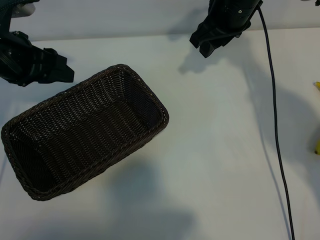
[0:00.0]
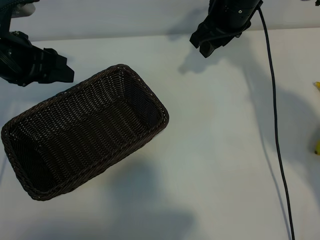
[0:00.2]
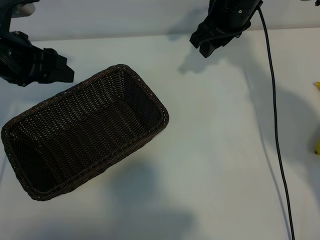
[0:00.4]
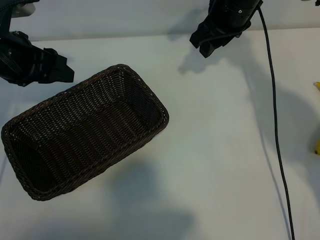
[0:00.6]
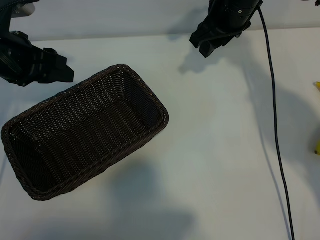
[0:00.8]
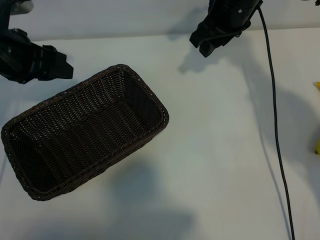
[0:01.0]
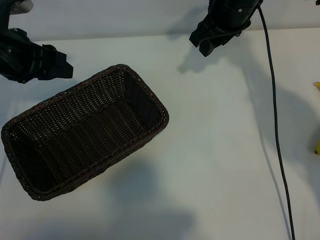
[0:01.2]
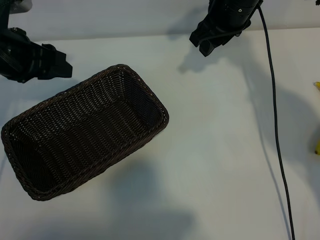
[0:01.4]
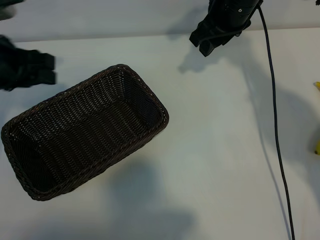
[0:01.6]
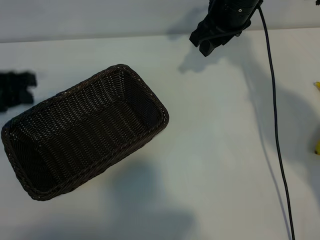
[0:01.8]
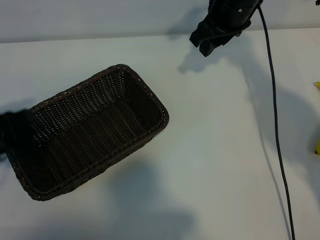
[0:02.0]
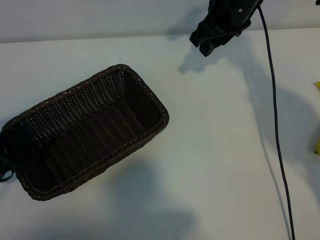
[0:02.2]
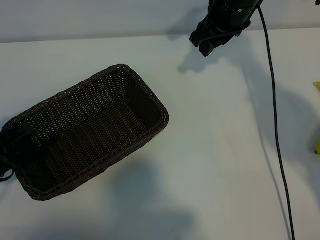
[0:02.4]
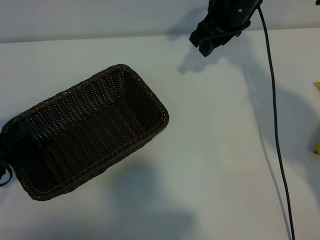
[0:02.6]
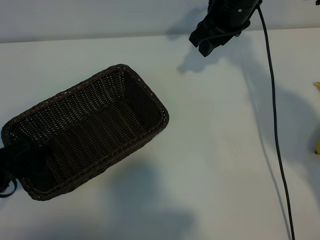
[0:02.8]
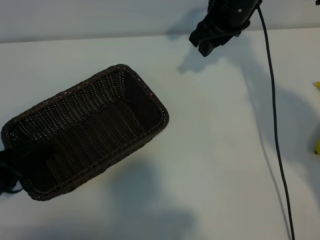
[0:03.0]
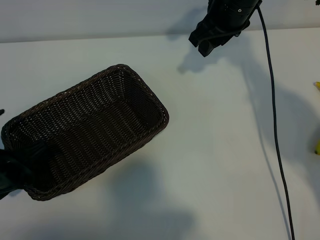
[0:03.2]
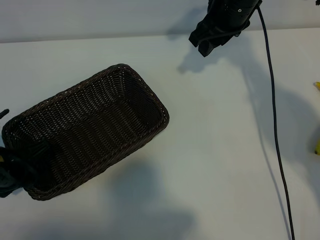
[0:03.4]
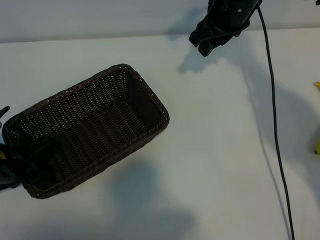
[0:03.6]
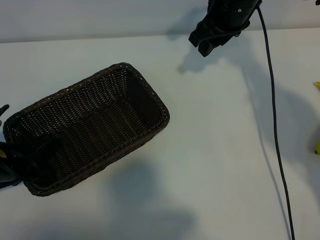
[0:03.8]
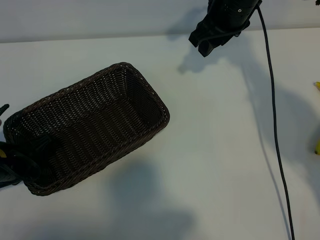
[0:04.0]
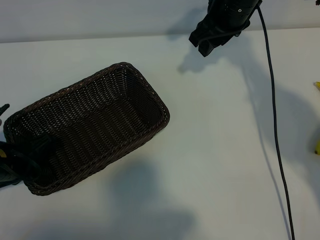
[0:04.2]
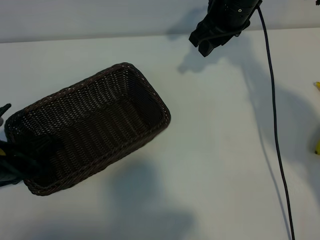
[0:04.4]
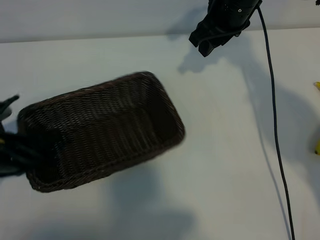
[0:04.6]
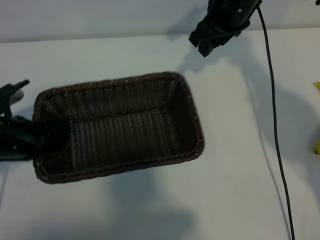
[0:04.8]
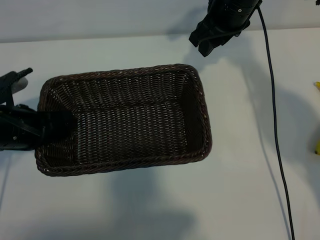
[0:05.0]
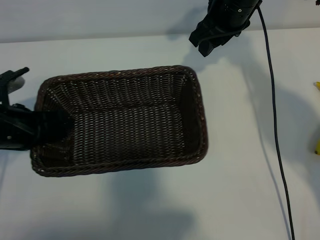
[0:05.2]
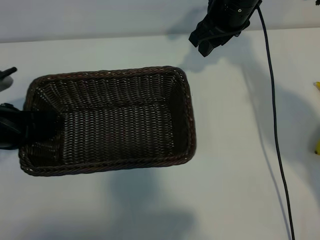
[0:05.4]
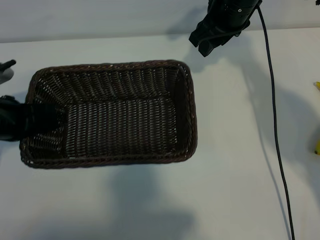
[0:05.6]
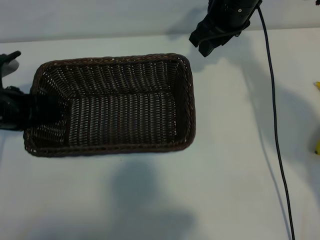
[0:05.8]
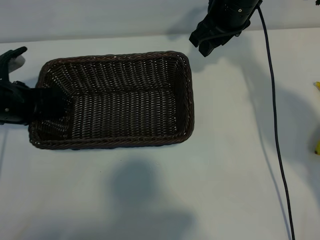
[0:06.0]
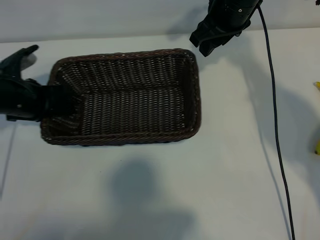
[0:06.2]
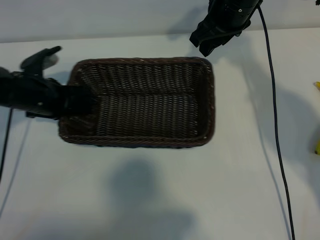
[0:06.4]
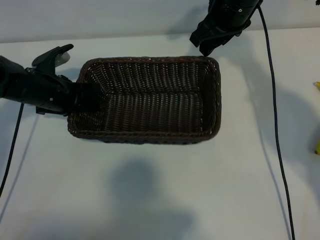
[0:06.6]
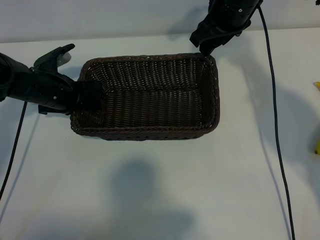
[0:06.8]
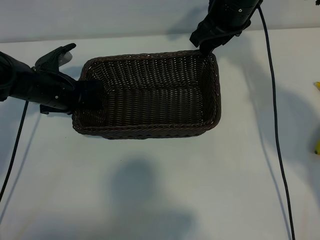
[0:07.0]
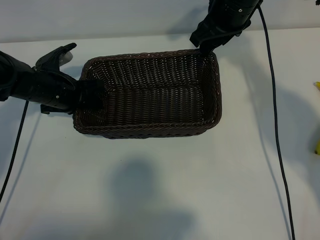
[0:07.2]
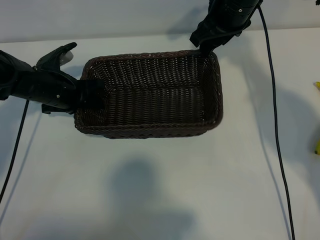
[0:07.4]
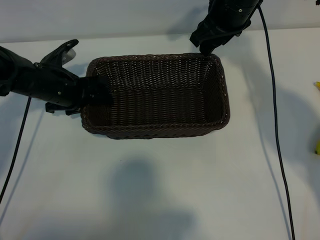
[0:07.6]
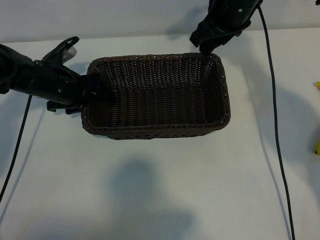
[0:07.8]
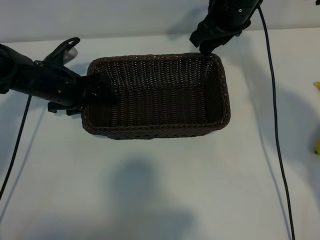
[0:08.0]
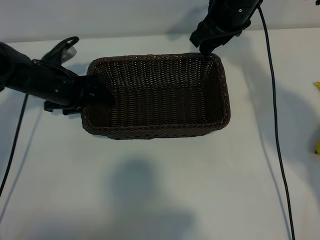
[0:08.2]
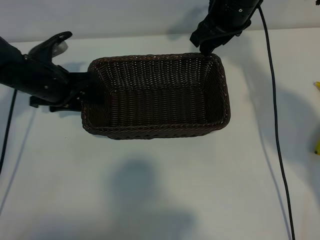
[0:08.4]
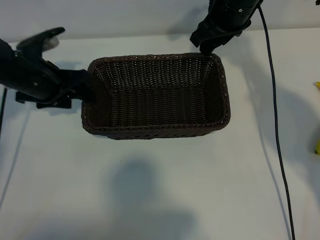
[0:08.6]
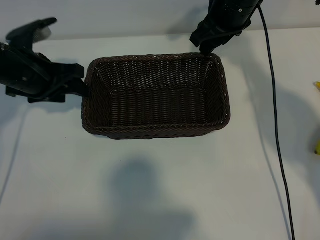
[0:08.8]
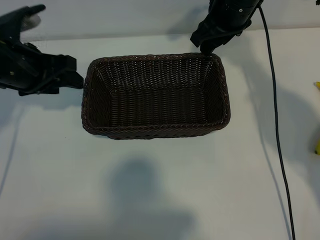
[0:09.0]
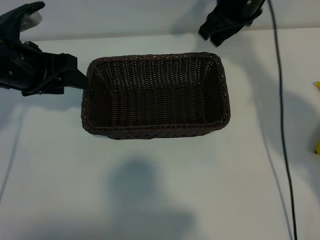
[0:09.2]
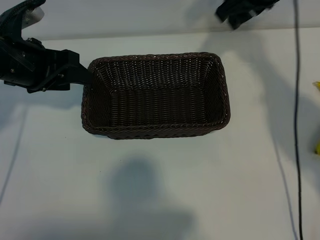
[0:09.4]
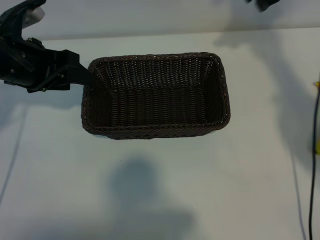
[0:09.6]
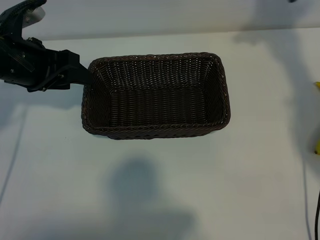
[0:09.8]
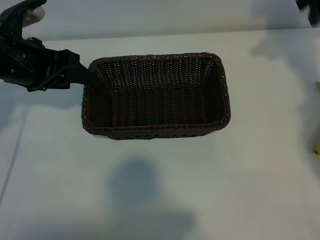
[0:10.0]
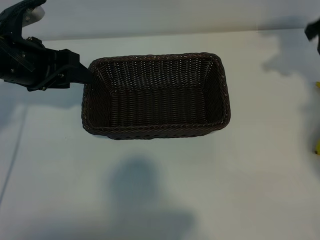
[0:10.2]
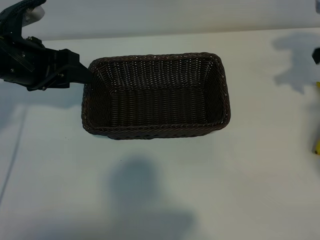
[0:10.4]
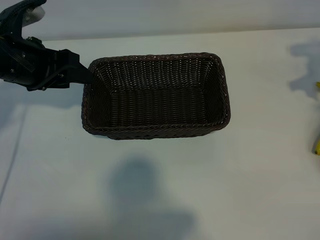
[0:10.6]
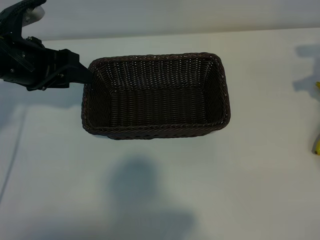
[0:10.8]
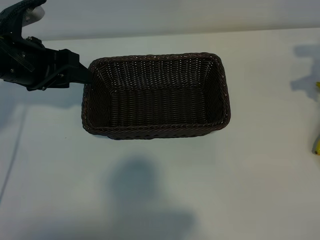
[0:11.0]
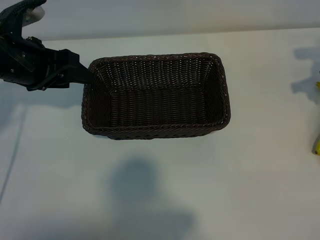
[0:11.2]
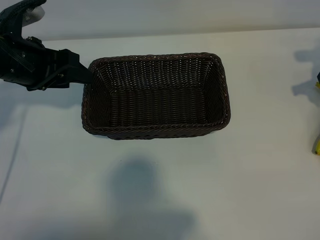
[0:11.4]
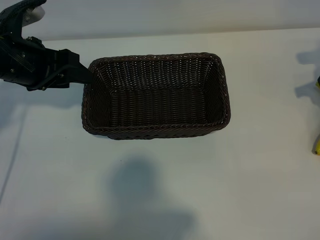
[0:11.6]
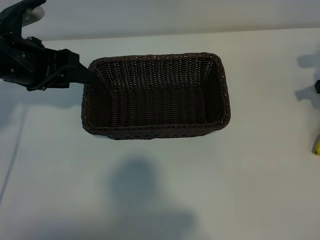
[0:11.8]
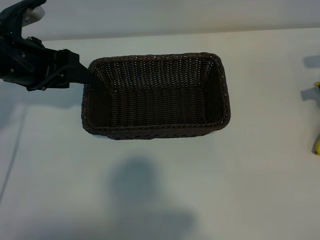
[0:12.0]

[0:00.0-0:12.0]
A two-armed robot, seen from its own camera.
Task of the whole recording: pick up the banana and put it into the basket.
Step, 0:01.0 to 0:04.2: Grasp the basket with the left gripper.
Step, 0:04.4 to 0:08.4: Place the basket in the center of the table with the left gripper.

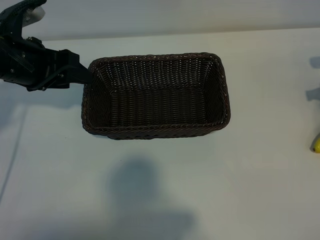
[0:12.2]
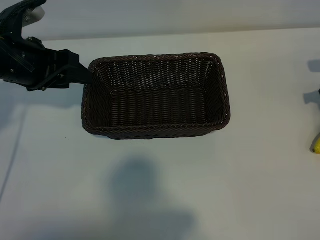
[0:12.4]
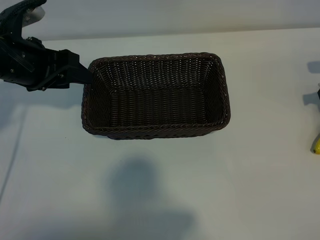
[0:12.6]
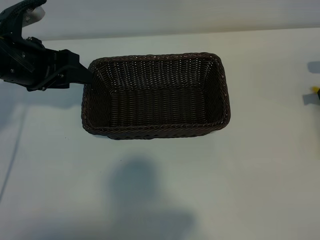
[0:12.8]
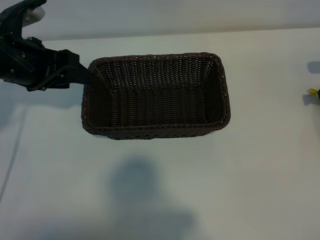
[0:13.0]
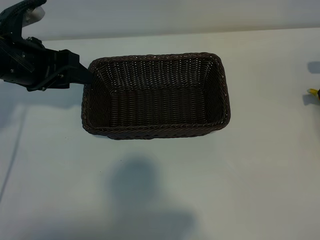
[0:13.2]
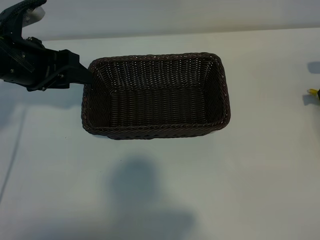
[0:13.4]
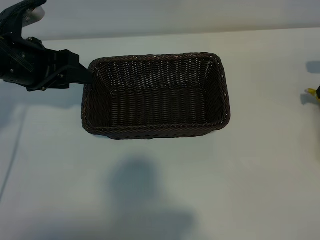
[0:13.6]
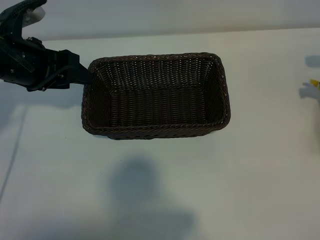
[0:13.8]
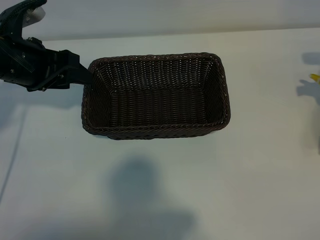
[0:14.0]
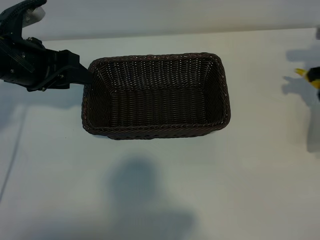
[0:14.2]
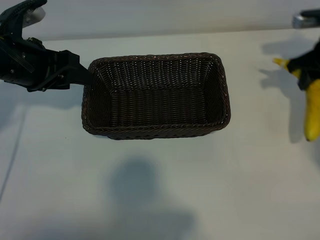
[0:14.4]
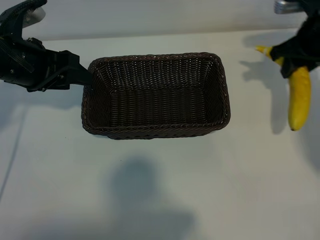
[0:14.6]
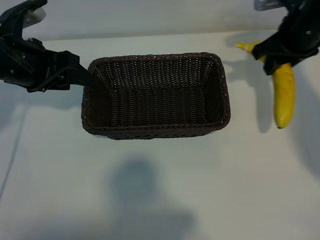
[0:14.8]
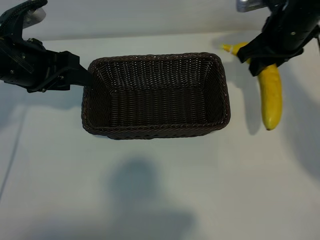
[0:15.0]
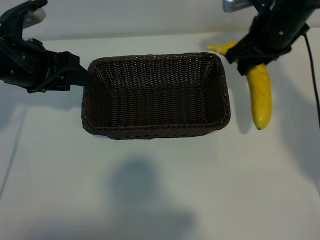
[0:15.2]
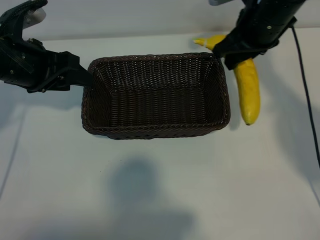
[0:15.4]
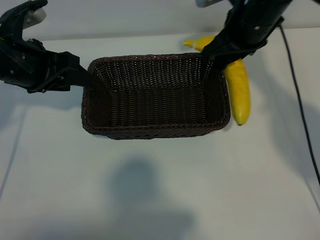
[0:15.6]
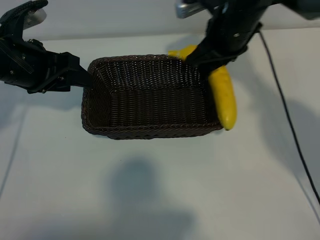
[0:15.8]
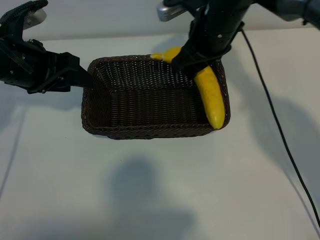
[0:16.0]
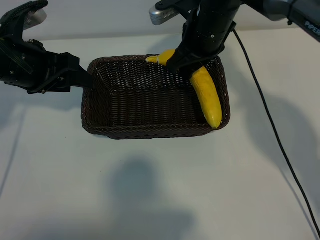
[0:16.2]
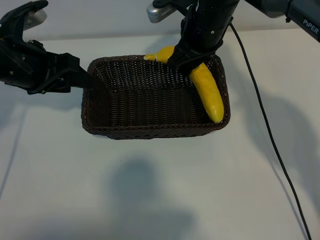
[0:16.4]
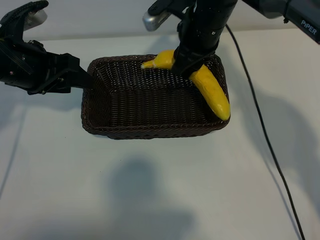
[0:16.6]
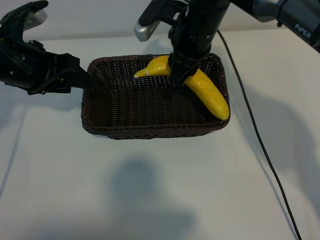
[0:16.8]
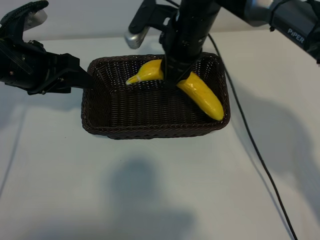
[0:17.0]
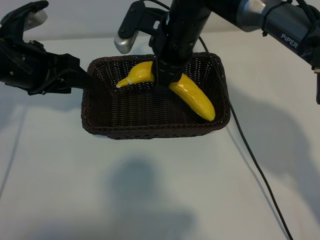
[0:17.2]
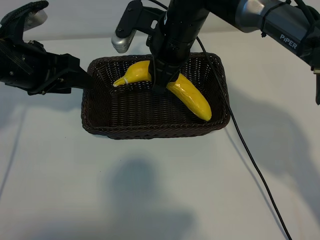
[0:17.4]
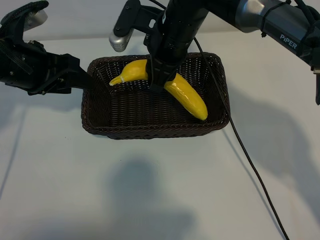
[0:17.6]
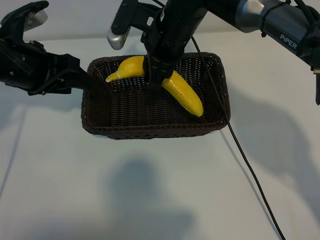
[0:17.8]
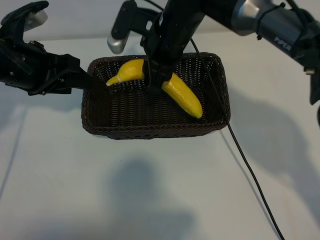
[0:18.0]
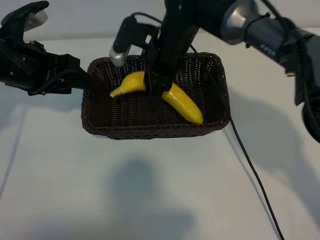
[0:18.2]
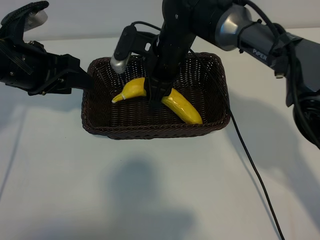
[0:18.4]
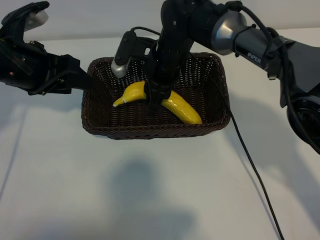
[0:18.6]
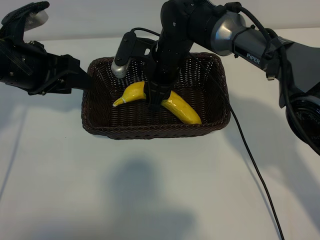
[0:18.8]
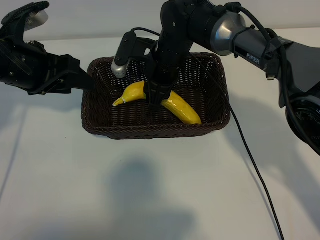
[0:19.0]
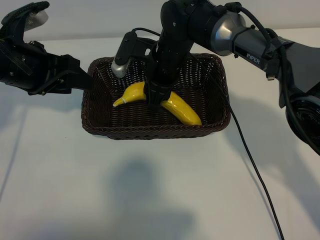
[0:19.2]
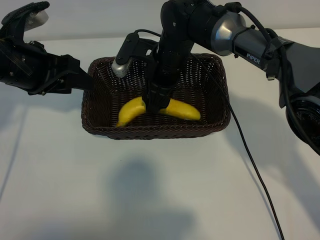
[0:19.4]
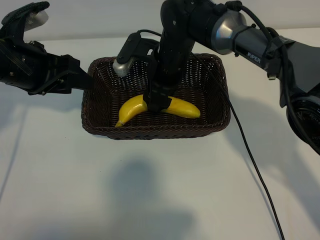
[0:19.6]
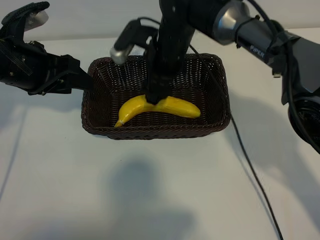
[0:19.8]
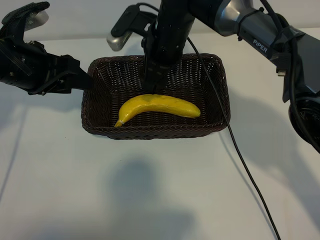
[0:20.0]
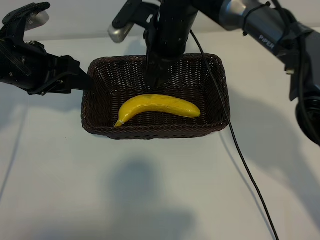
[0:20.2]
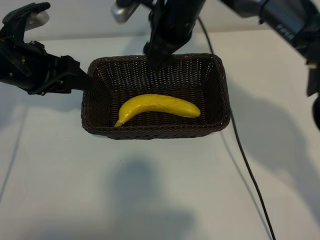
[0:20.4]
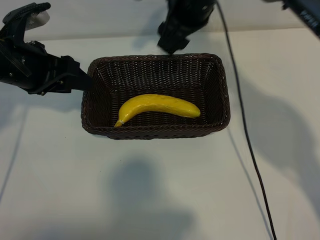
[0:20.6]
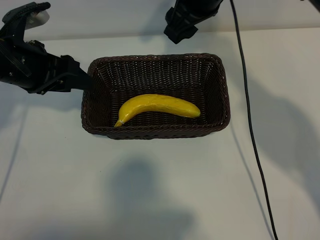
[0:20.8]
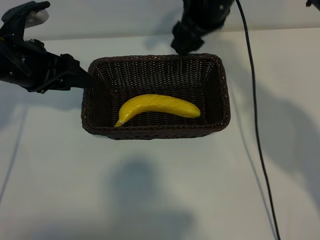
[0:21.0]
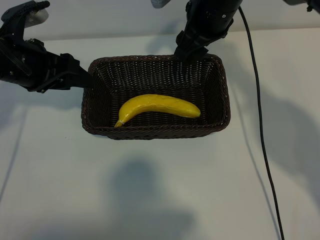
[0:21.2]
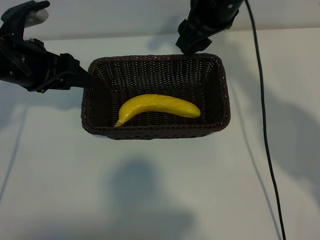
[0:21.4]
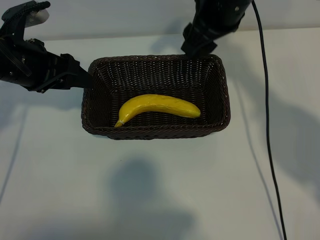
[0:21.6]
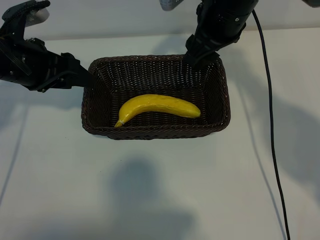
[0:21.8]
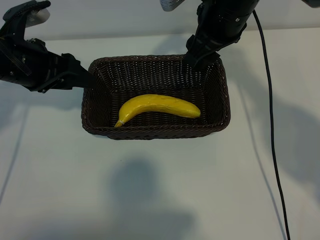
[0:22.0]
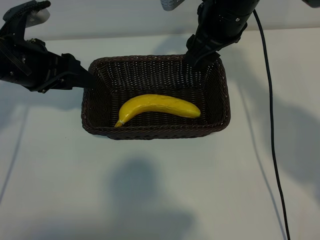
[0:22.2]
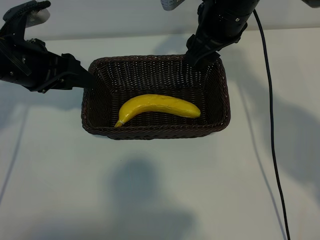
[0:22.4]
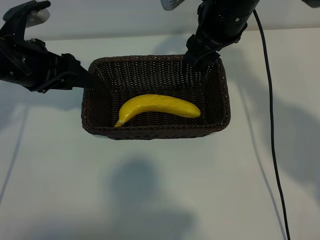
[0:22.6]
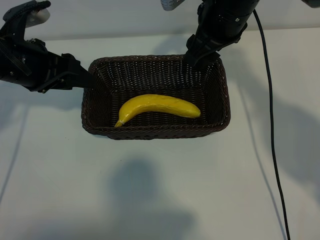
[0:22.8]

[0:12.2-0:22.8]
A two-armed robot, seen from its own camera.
Task of the whole recording: pick up the banana and put it into the basket.
Step, 0:13.6 to 0:19.8: Place the banana in the basket with right gripper.
